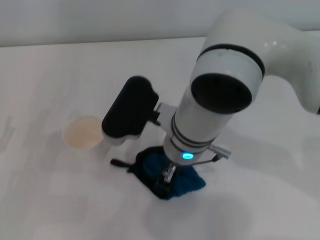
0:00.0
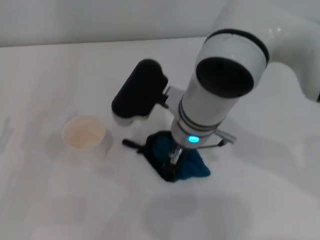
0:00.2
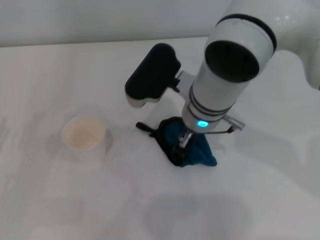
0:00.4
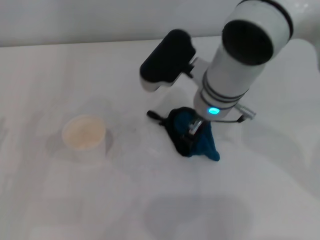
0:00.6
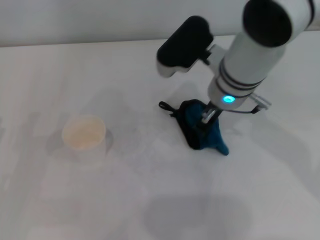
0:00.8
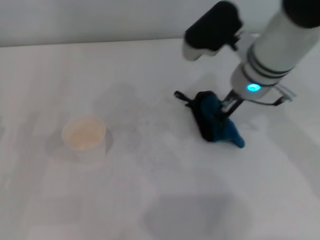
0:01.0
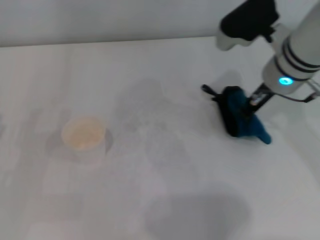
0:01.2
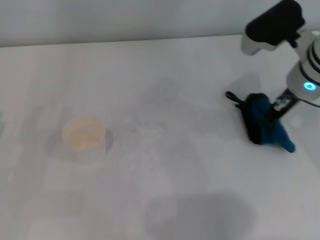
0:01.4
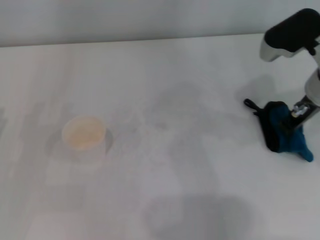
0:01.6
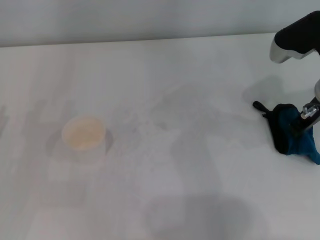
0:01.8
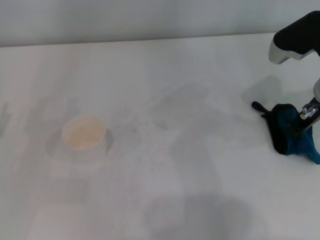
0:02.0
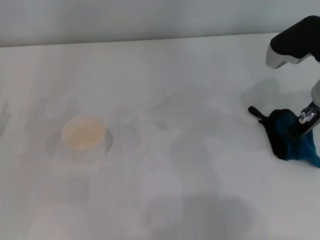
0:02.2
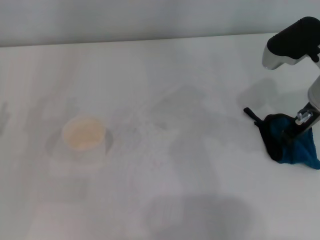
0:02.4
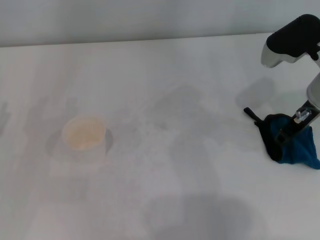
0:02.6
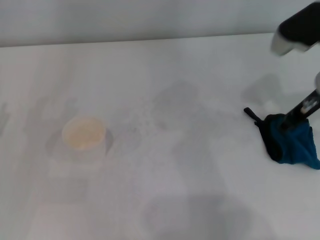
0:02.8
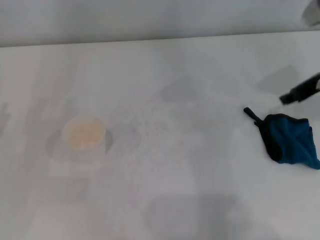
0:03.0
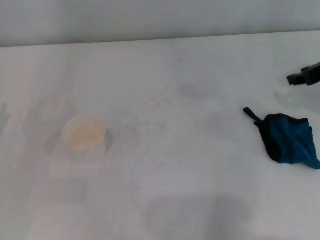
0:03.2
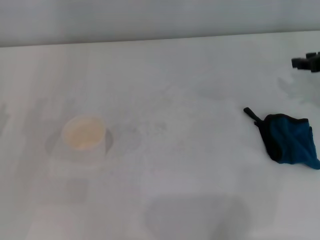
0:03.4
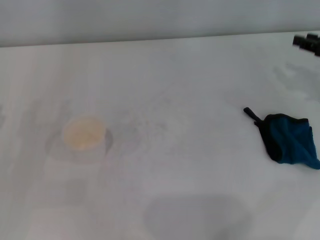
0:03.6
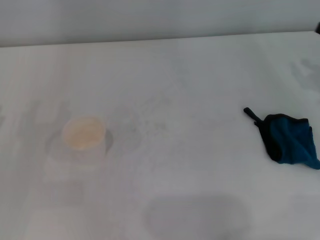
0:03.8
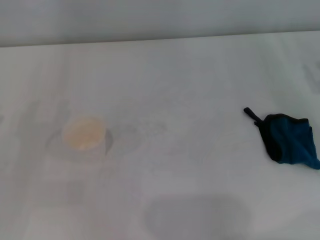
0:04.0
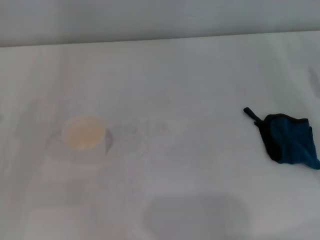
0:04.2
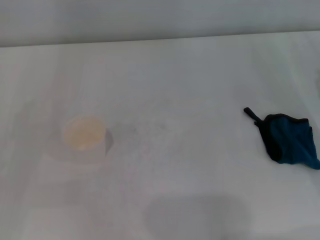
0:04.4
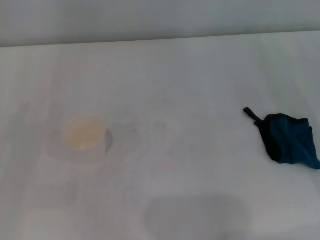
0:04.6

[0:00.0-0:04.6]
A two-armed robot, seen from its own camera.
Step, 0:02.0 to 0:02.6: Place the rag on the table with the right gripper.
0:00.0 to 0:01.6: The right gripper travels to the right by about 20 cm.
0:01.6 to 0:03.0: The right gripper moves about 5 cm, and opens.
0:03.0 to 0:04.6: The right gripper travels downward, to the right and backward by roughly 20 cm.
